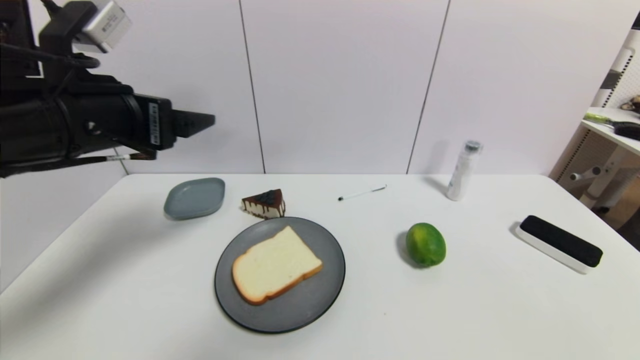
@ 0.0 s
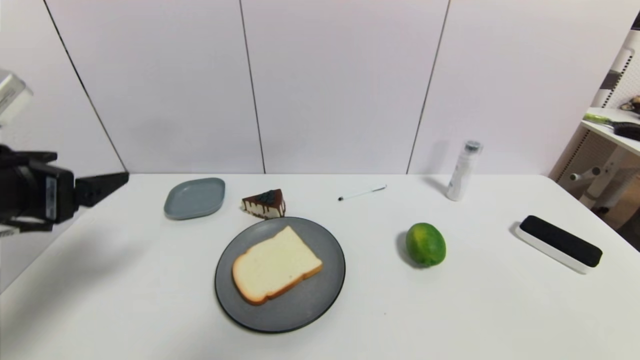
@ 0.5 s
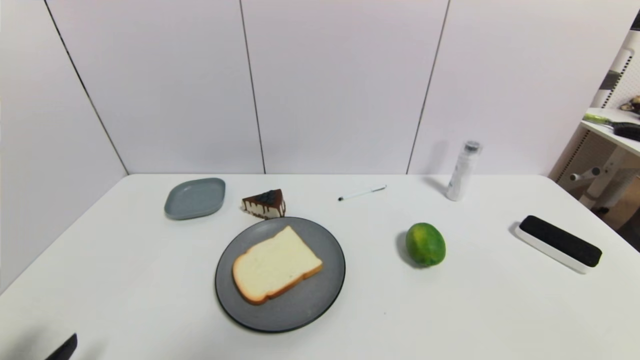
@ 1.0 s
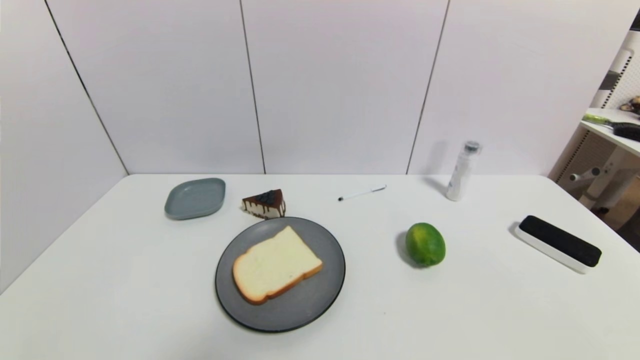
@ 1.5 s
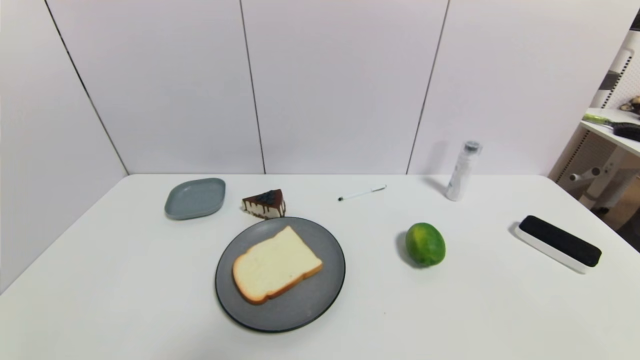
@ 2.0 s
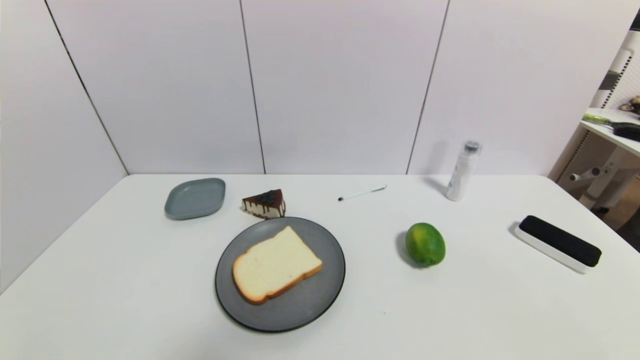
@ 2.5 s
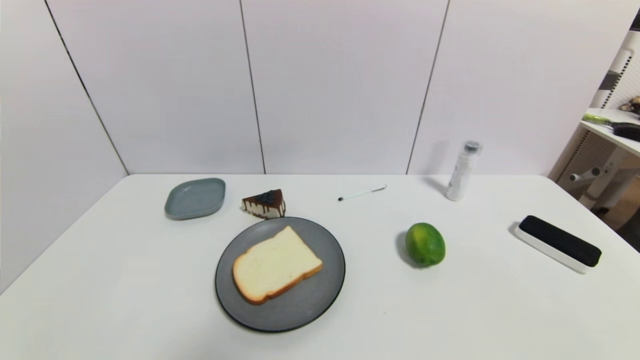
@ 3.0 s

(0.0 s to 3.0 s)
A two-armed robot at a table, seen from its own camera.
Task of the whole recording: use a gripper to pick the target object and place on the gray plate.
0.0 s - 1.5 s: The left gripper is displaced downward and backward by about 35 cm.
